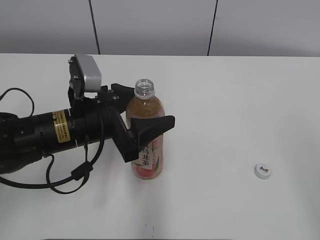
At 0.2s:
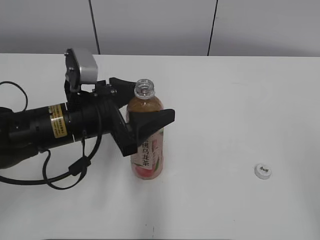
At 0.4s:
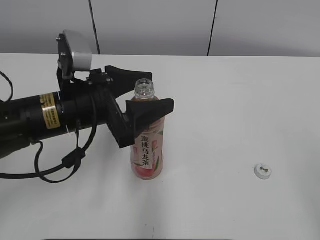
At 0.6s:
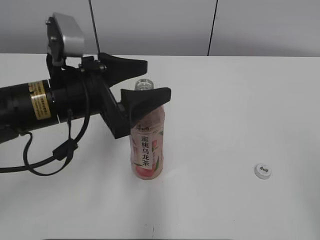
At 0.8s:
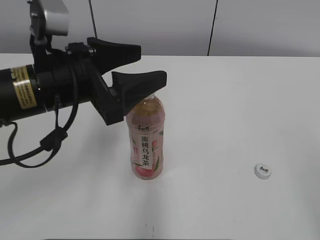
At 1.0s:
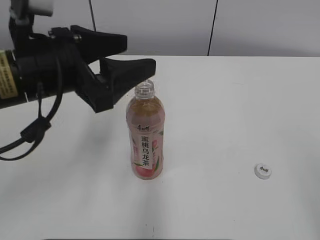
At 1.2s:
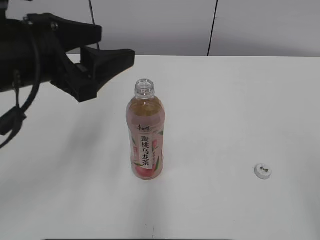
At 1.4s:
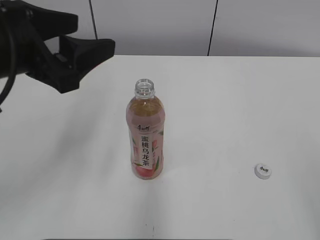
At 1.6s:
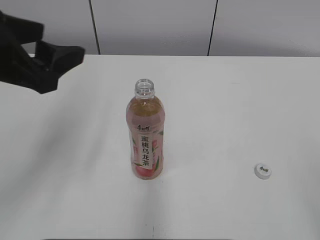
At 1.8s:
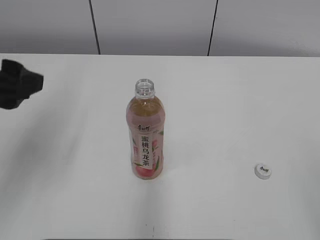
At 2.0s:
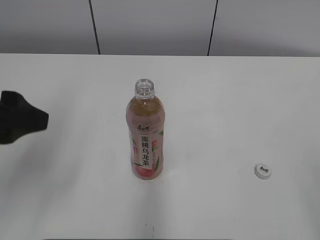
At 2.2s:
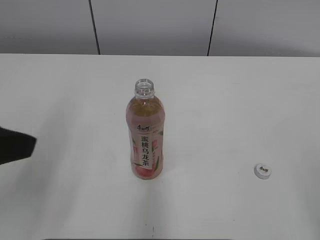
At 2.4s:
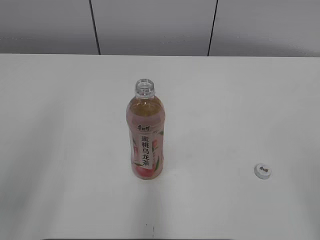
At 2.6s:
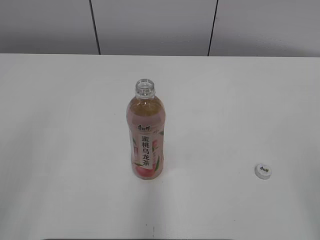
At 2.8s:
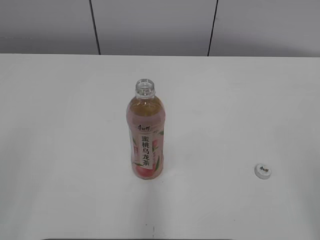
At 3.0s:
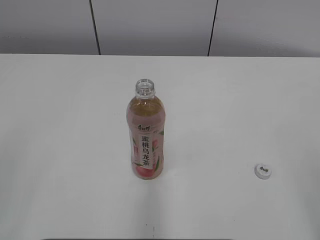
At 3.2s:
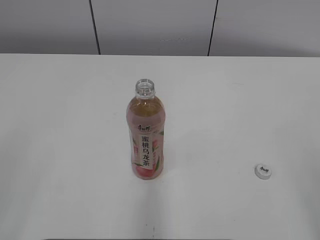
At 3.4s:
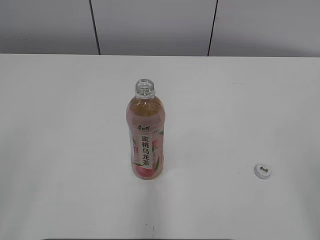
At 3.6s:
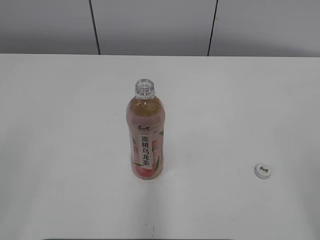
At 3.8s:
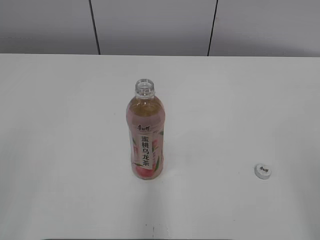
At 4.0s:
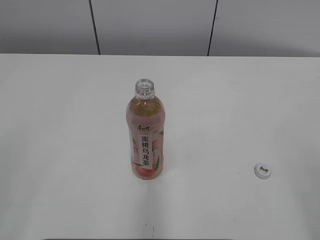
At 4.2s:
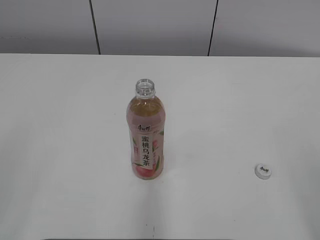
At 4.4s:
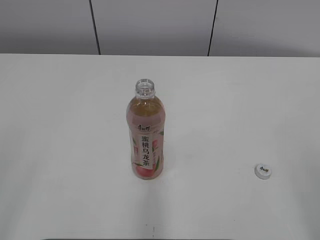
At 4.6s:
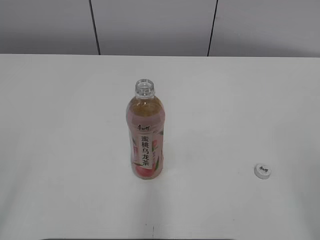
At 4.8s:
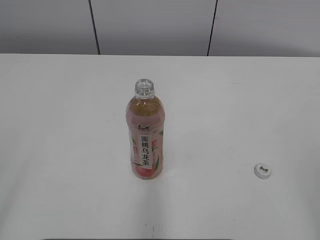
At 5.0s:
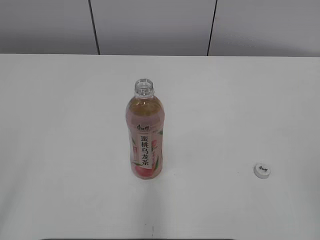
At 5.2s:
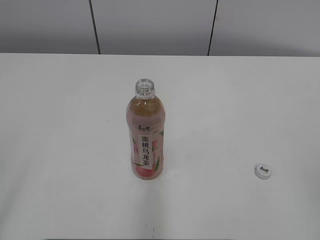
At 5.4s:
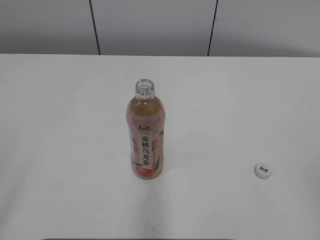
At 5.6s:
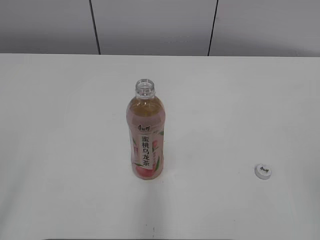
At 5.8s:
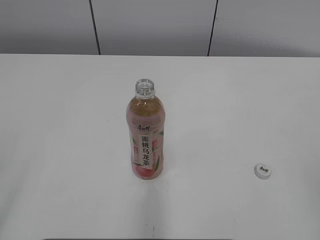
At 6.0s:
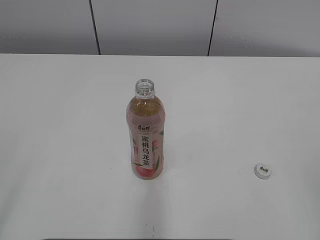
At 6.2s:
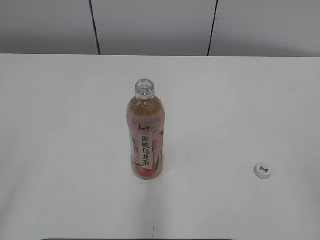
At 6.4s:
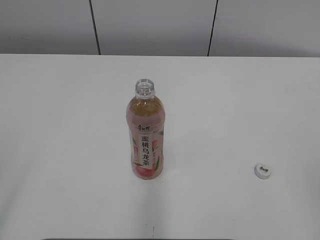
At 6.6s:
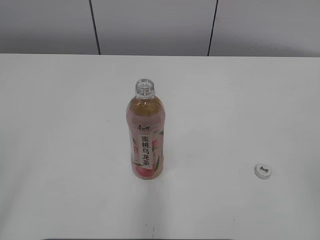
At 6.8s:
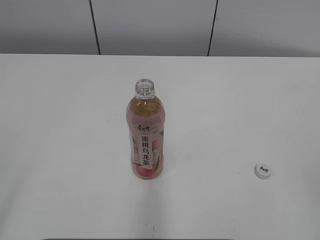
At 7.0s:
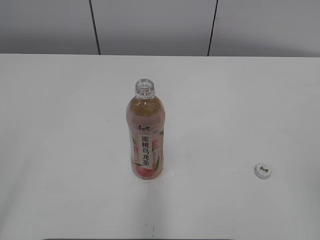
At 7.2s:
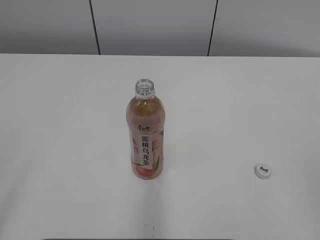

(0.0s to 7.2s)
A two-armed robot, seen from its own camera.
0.0s - 1.4s: The left gripper shifts roughly 15 cm upward. The right gripper goes roughly 5 cm downward.
1.4s - 2.8s: The left gripper shifts some 25 cm backward and to the left.
5.8s - 7.2s: The two grippers keep their place.

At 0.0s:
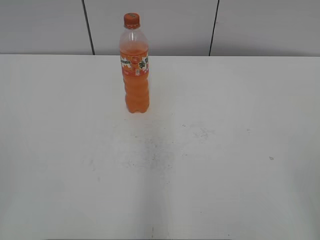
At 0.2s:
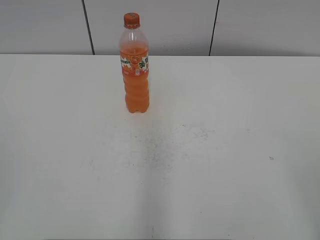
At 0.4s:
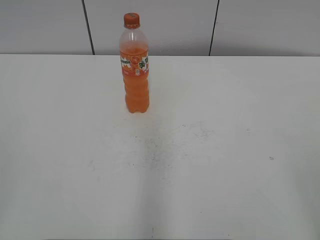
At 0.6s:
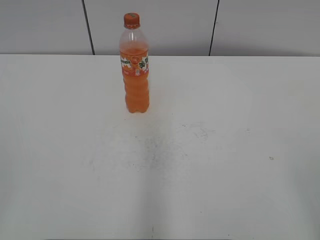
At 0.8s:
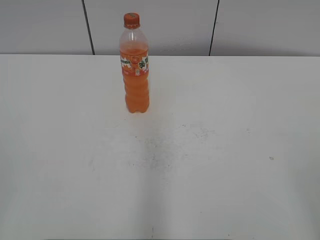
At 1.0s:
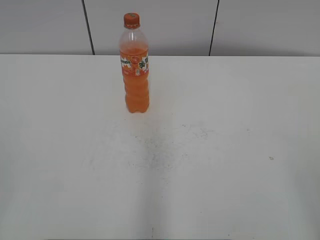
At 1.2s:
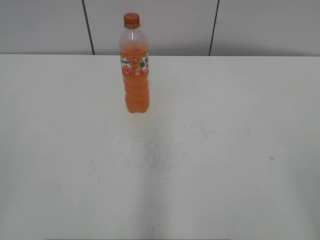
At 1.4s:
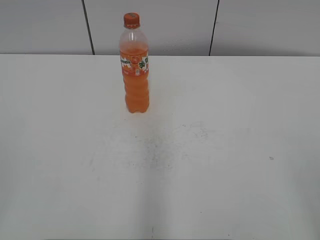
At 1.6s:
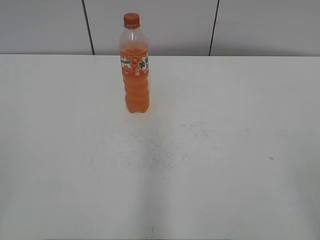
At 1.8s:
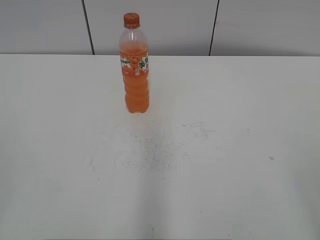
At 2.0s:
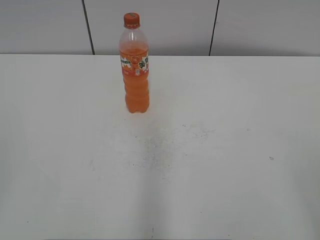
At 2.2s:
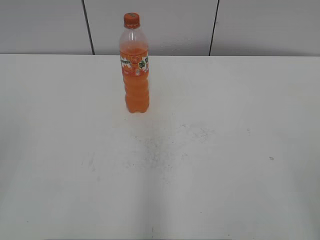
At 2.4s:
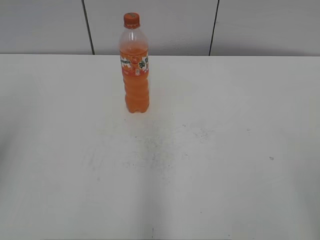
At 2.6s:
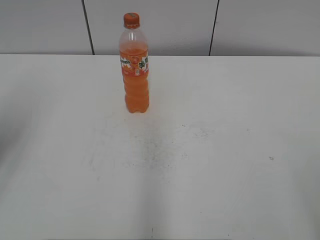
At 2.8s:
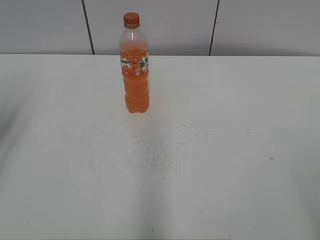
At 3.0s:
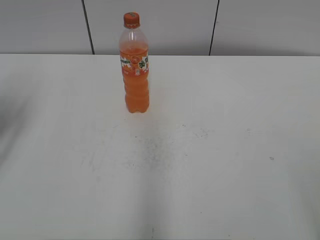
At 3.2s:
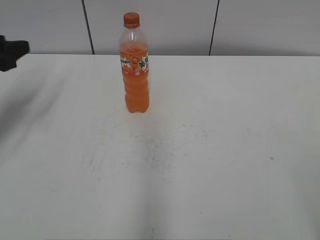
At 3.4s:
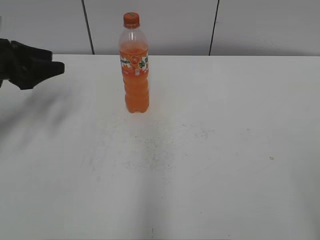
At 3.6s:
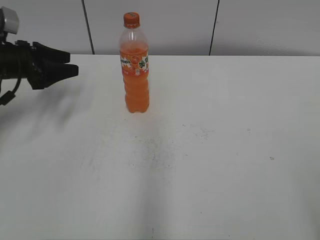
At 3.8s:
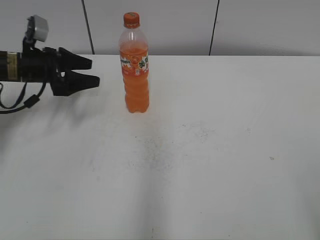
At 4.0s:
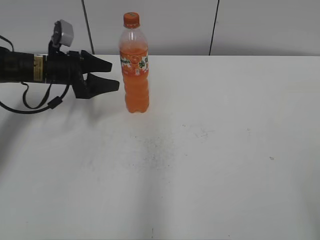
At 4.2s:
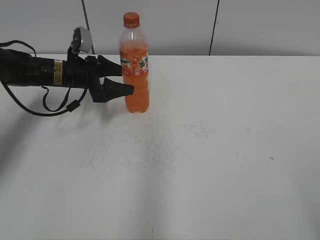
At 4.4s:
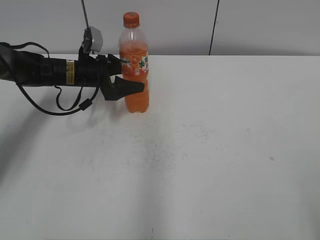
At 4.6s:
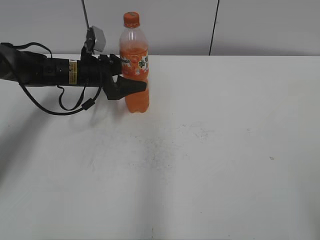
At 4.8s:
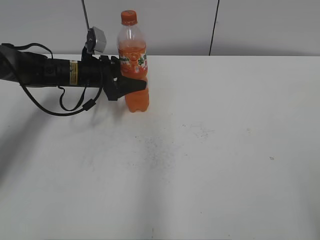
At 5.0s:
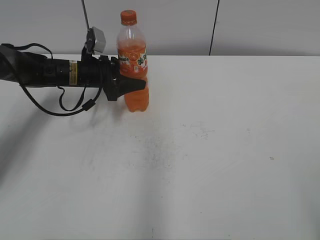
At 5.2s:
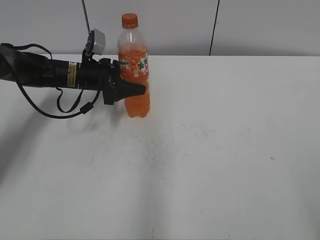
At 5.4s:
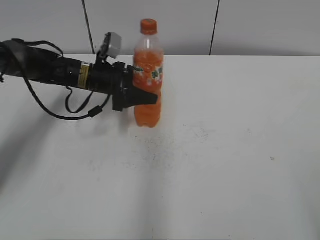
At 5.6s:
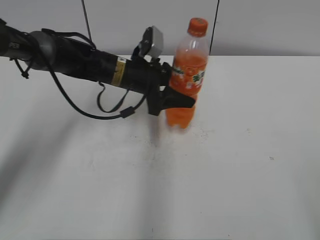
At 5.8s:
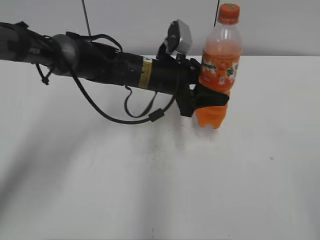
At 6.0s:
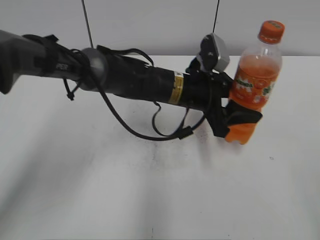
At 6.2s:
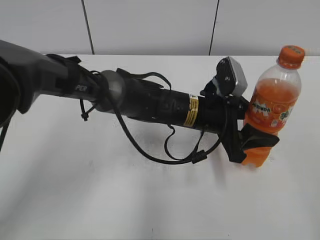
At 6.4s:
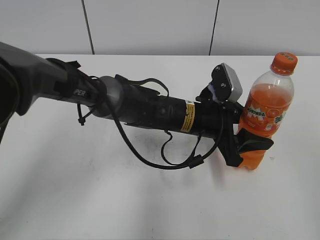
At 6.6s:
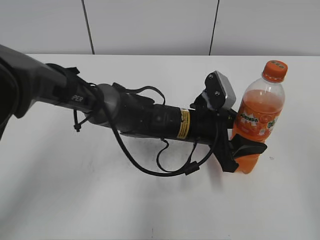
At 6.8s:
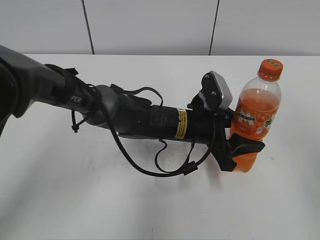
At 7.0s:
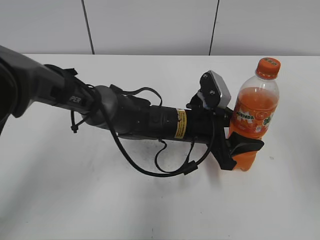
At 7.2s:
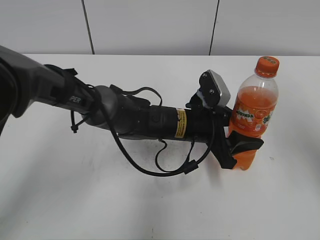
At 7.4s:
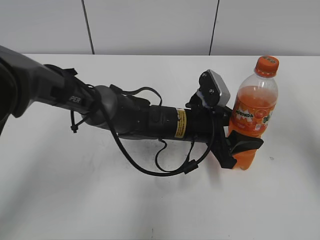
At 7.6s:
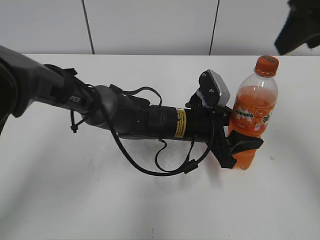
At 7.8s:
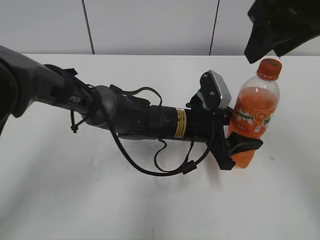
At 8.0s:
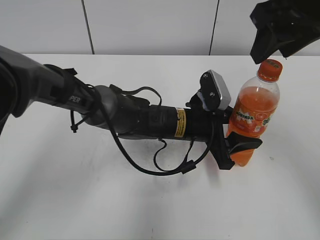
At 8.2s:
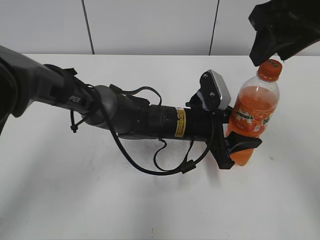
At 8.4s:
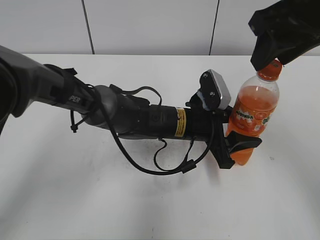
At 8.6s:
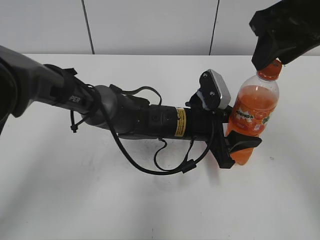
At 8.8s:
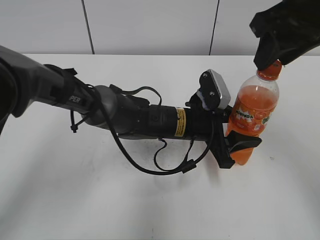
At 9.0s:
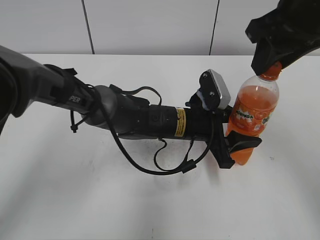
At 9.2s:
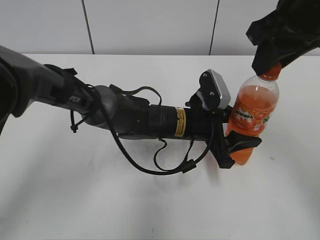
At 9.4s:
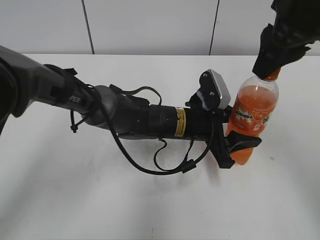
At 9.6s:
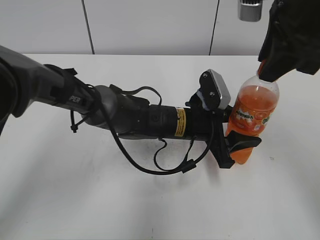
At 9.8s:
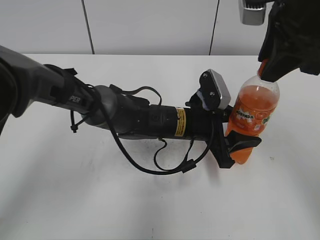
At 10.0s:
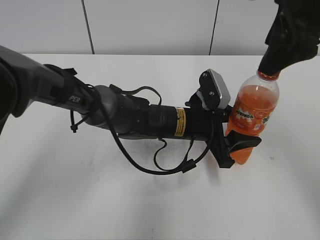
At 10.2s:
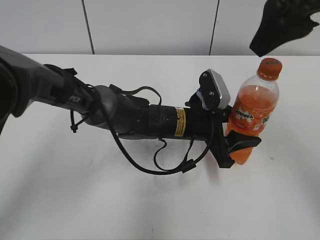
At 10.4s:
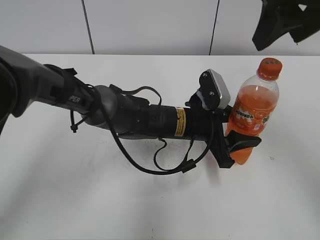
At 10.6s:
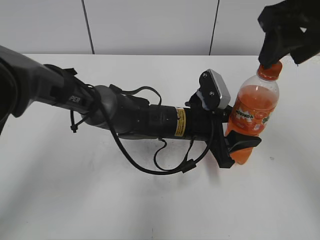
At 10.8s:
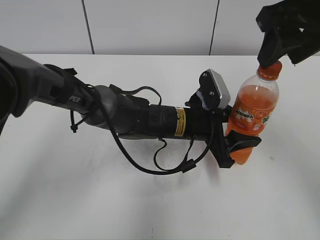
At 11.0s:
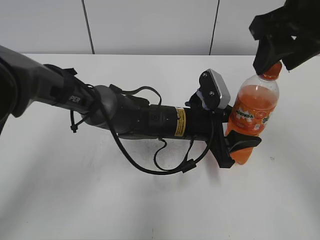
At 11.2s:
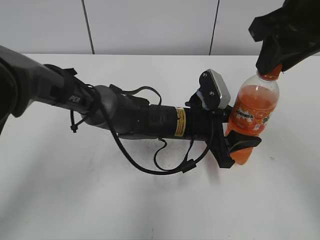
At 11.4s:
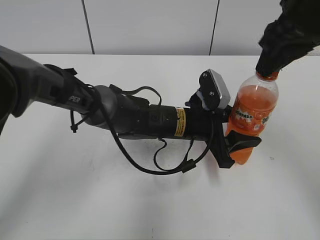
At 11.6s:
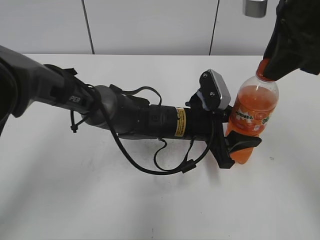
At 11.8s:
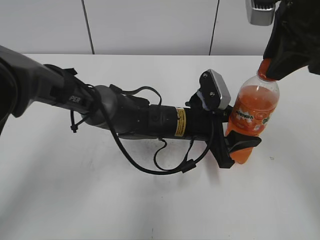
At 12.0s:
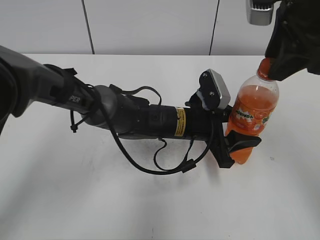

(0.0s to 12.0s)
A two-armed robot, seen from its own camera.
Step, 0.0s - 4.8s: Grab the Mirinda with the left hand.
Step, 5.0s - 7.0s: Move the Mirinda from left to right.
1.6s - 3.0s: The left gripper moves forward, some 30 cm.
3.0s - 4.4s: The left gripper moves forward, to the right and downward, roughly 30 cm, and opens.
4.4s - 6.0s: The left gripper goes approximately 25 cm to the right and backward, and closes up.
6.0s - 7.6s: The right gripper is displaced forward by roughly 25 cm, and closes its fingers. Meanwhile the left gripper shifts approximately 5 cm downward.
7.6s - 9.0s: The right gripper ends up some 5 cm from where it was.
9.0s - 10.4s: The right gripper opens up.
10.4s - 12.0s: The right gripper closes up.

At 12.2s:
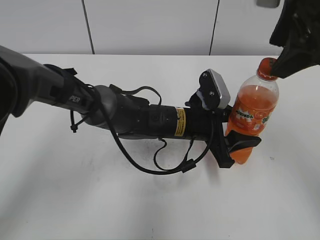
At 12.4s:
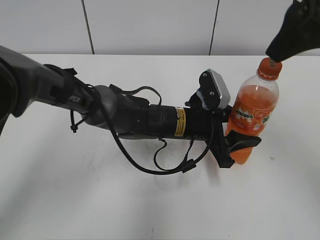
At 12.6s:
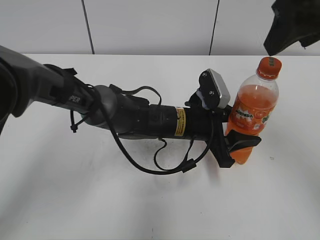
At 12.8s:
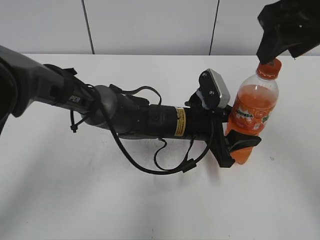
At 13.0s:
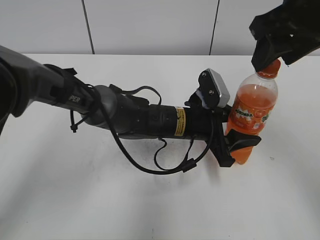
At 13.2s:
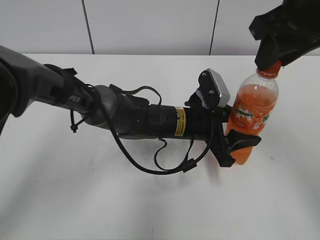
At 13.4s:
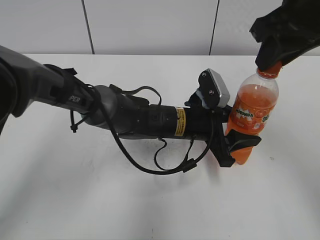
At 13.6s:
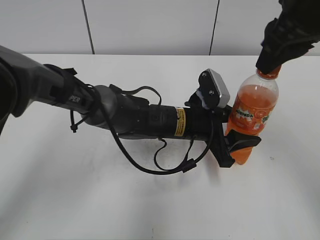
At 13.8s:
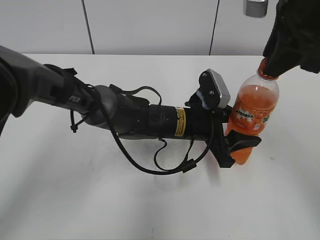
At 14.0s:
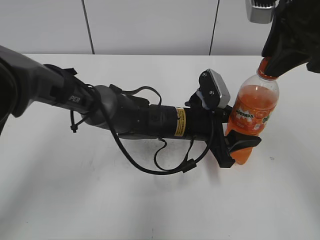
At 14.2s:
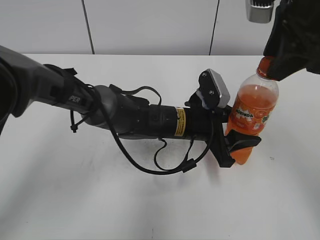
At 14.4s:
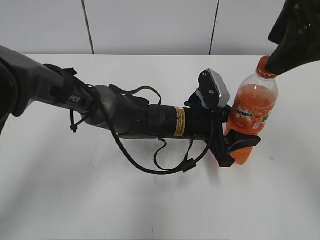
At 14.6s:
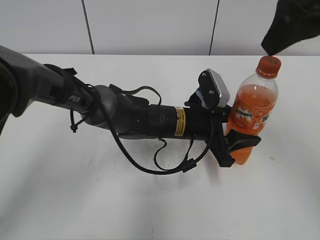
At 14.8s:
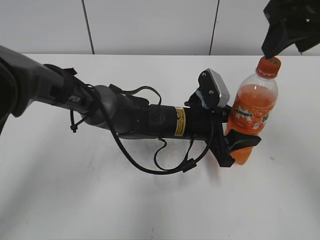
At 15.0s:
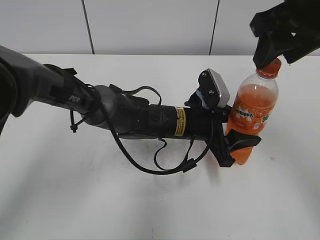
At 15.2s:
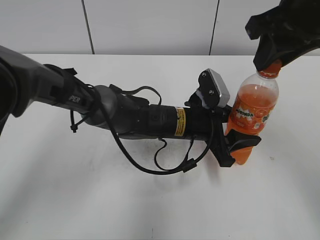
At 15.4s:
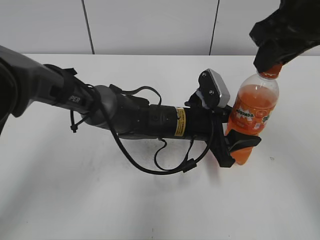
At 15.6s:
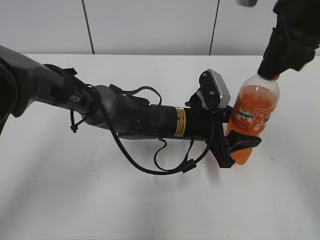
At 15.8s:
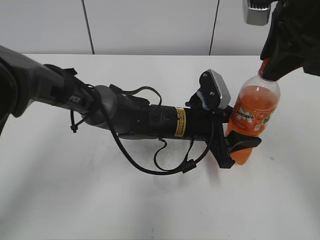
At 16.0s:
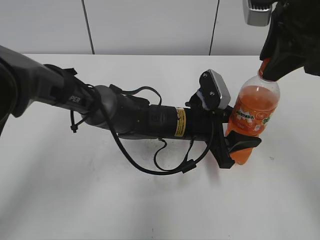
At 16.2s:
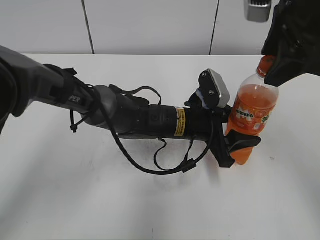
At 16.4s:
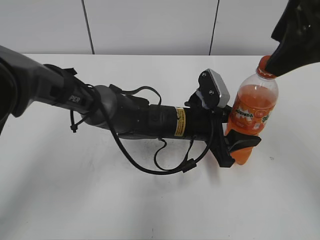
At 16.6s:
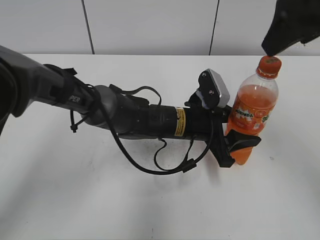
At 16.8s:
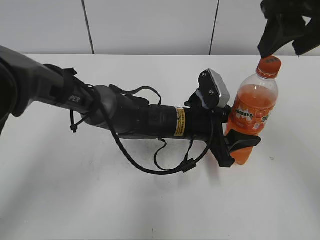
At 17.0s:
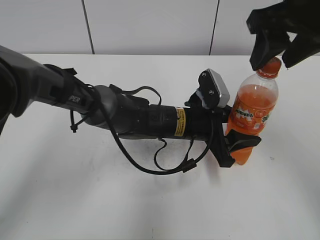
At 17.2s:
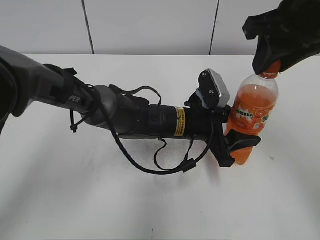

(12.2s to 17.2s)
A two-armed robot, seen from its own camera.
12.2s - 13.8s: The right gripper closes up.
13.8s - 15.6s: The right gripper opens and closes again.
15.6s - 17.2s: The right gripper opens and closes again.
